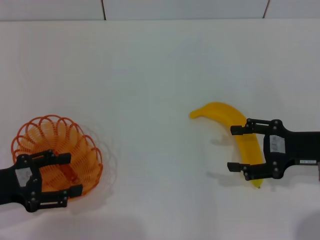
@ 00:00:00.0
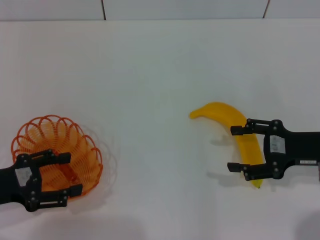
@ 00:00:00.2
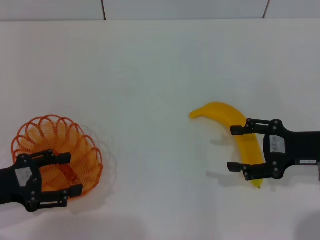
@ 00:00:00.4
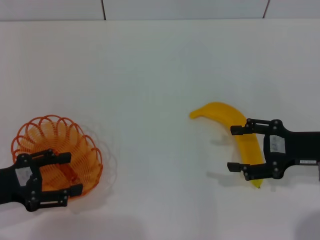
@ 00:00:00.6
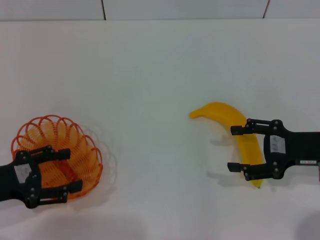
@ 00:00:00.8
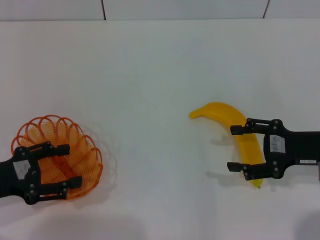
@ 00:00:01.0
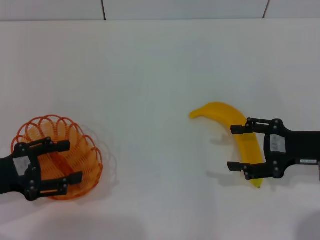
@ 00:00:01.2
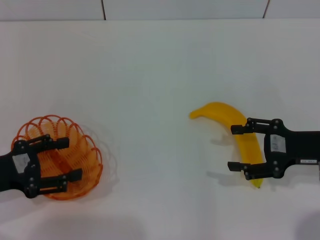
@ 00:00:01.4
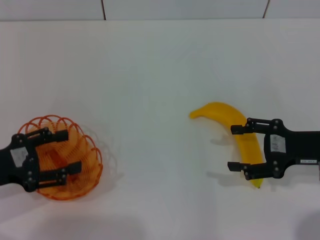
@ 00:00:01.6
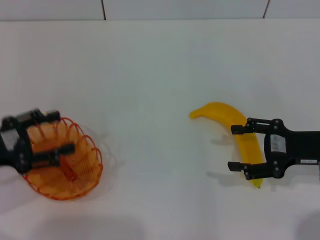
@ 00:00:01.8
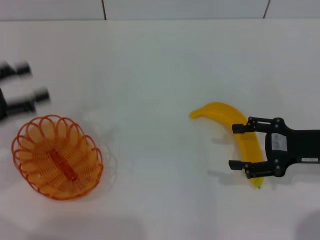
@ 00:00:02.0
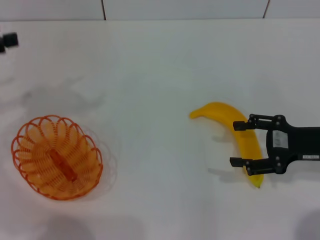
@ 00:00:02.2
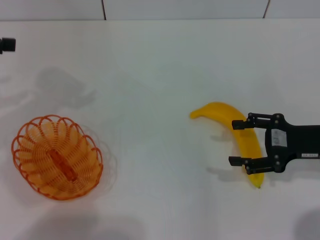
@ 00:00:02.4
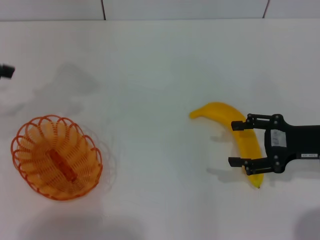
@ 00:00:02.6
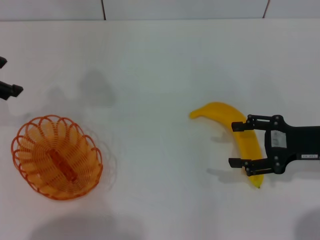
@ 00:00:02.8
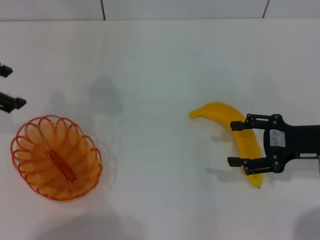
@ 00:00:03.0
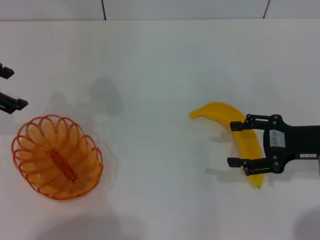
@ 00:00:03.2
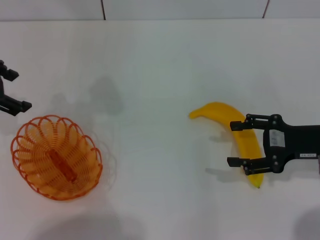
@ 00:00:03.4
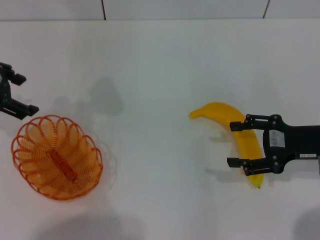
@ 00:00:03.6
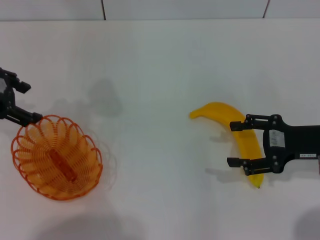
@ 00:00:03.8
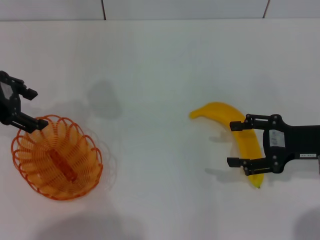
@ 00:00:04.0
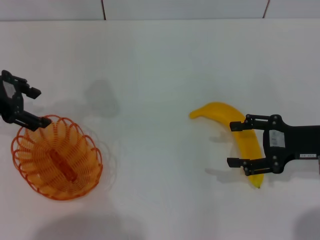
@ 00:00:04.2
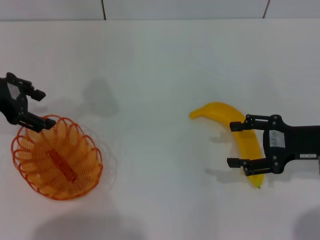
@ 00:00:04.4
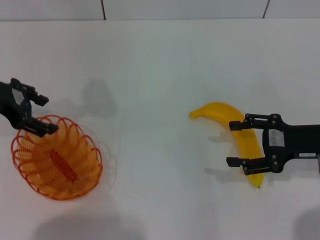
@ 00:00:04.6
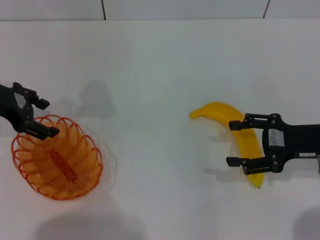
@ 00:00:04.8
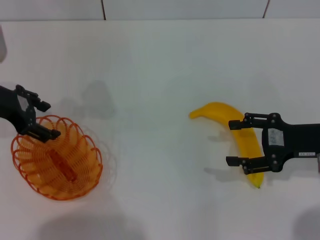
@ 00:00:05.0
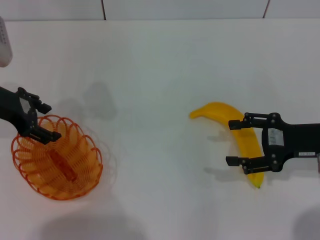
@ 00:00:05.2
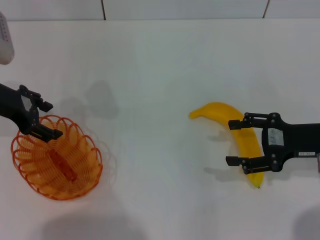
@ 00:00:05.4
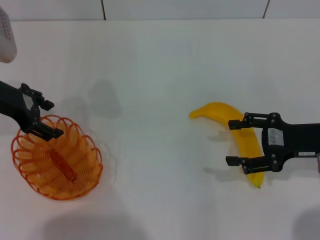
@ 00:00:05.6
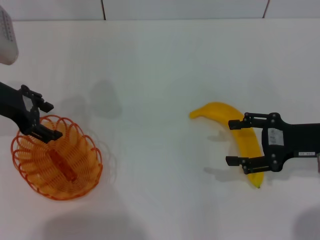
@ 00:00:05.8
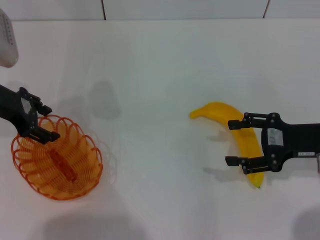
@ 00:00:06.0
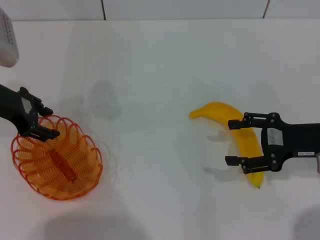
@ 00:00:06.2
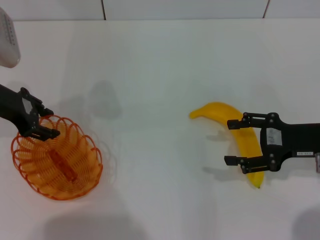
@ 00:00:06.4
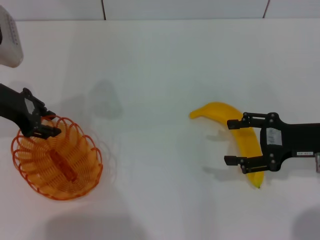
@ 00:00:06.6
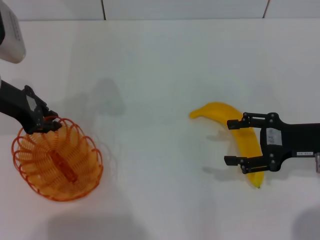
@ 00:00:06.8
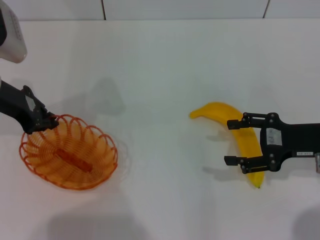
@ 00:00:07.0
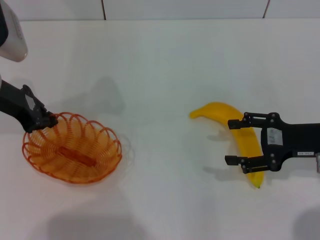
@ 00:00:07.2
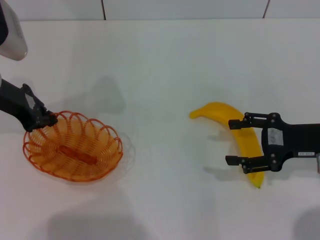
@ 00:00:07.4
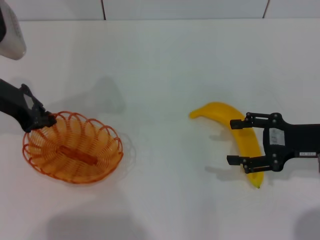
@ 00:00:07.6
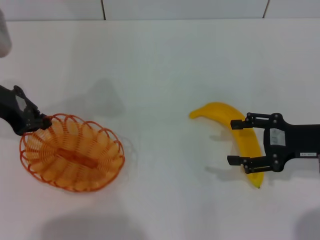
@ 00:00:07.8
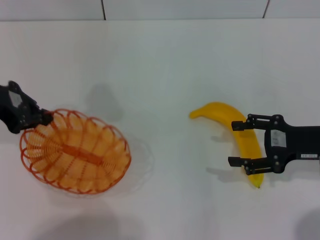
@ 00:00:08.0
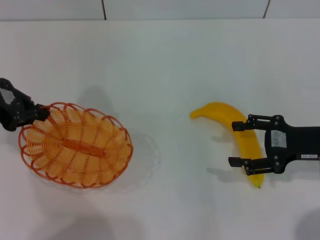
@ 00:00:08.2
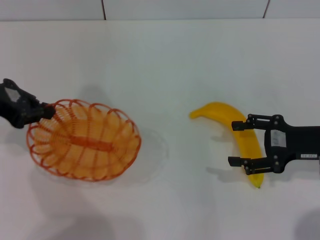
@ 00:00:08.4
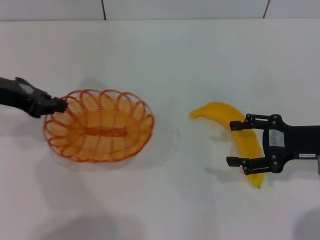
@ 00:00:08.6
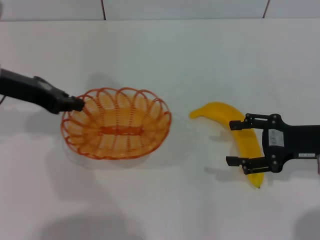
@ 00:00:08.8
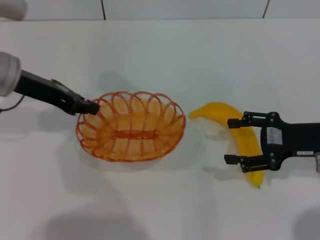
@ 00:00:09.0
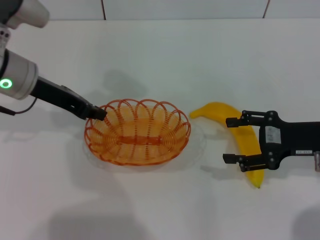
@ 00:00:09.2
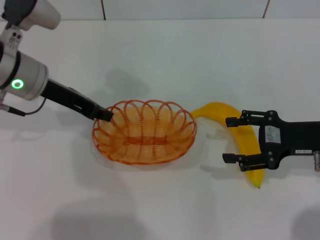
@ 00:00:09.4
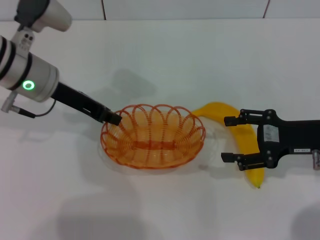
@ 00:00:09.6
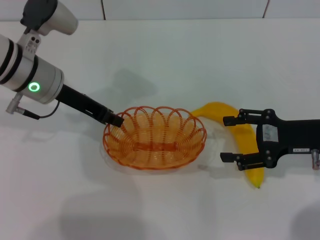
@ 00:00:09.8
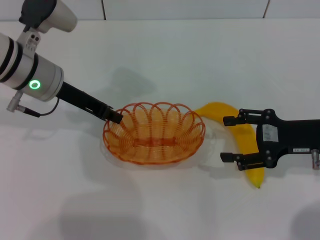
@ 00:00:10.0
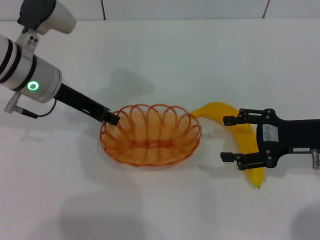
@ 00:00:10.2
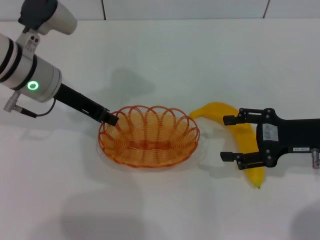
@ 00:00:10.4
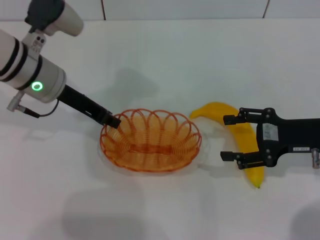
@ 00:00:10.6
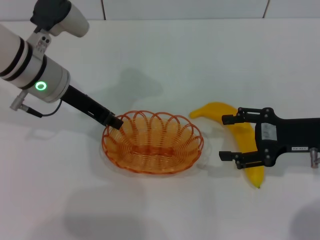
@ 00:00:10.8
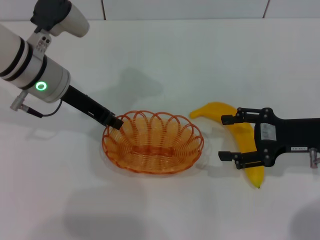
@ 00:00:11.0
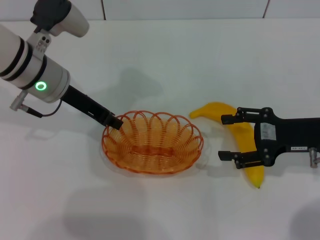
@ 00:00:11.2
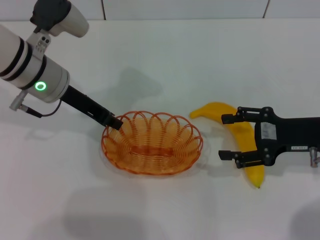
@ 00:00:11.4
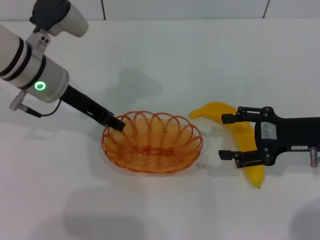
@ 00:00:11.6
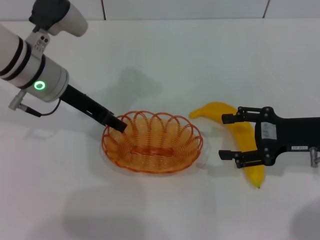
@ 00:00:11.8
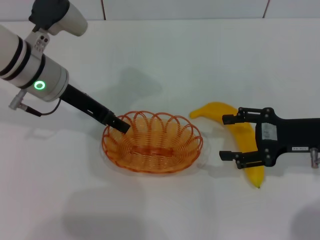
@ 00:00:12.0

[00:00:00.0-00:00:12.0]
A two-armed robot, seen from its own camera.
Step, 00:00:00.0 to 00:00:08.0: Pick up the basket with the left gripper.
00:00:00.0 to 00:00:01.6: There are only small adjustments of the grippers.
00:00:01.6 to 00:00:03.0: The left gripper goes about 20 cm upward and forward.
00:00:03.0 to 00:00:04.4: There are only small adjustments of the grippers.
00:00:04.4 to 00:00:06.0: The grippers make only small movements.
00:00:06.0 to 00:00:07.6: The left gripper closes up.
00:00:09.0 to 00:00:10.4: The left gripper shifts by about 5 cm.
00:00:10.4 to 00:00:12.0: The left gripper opens up.

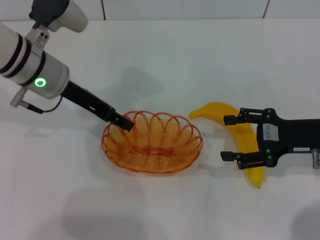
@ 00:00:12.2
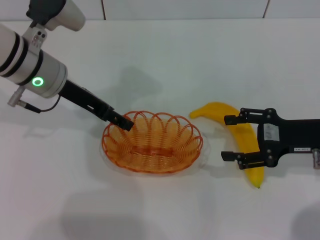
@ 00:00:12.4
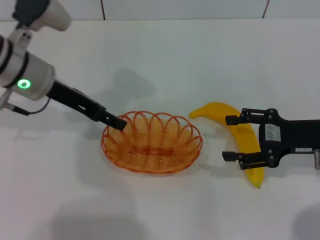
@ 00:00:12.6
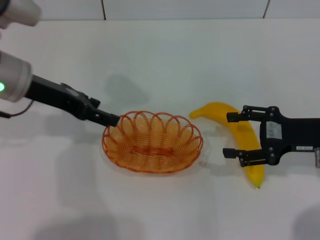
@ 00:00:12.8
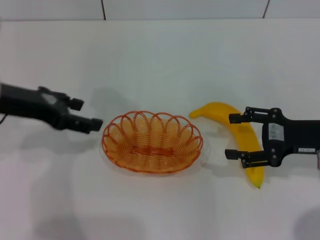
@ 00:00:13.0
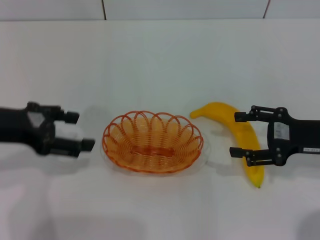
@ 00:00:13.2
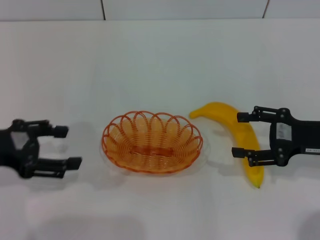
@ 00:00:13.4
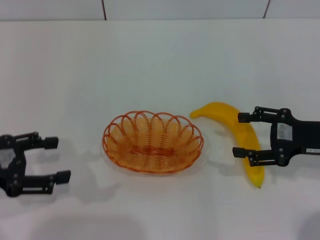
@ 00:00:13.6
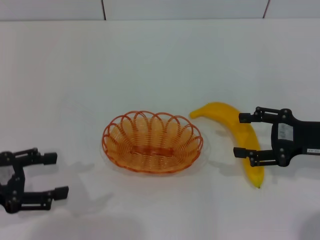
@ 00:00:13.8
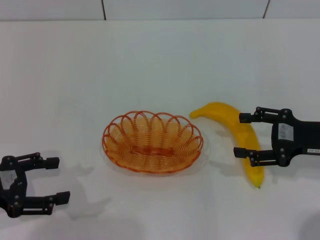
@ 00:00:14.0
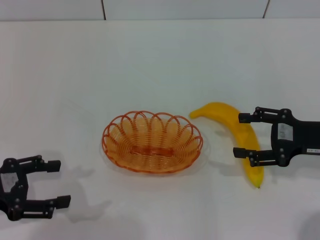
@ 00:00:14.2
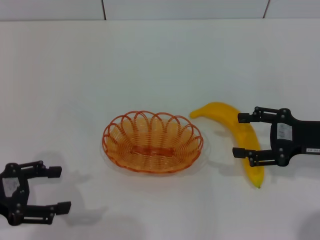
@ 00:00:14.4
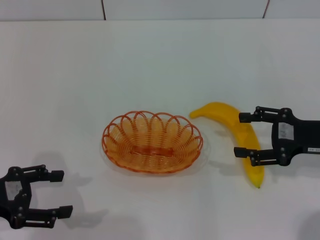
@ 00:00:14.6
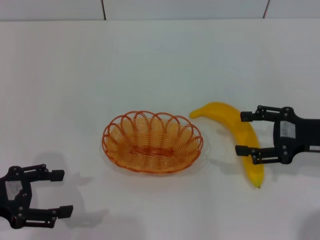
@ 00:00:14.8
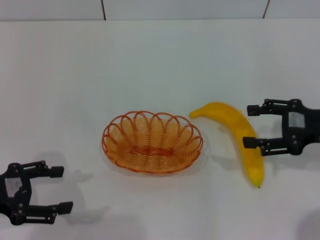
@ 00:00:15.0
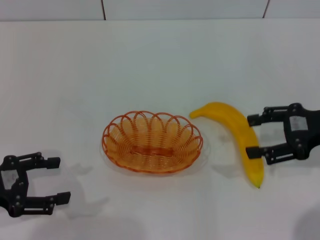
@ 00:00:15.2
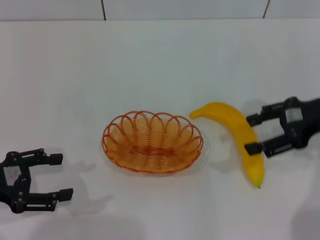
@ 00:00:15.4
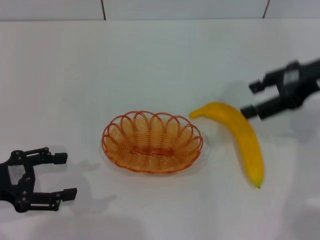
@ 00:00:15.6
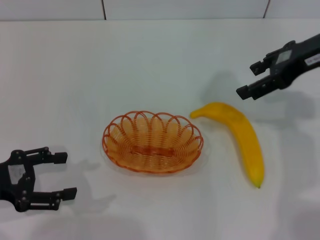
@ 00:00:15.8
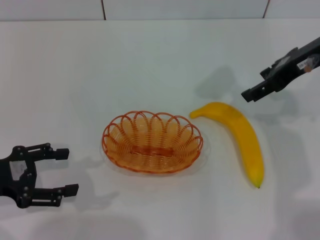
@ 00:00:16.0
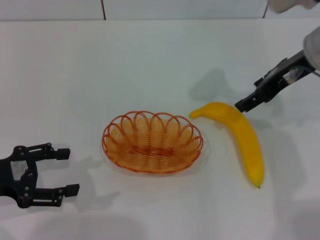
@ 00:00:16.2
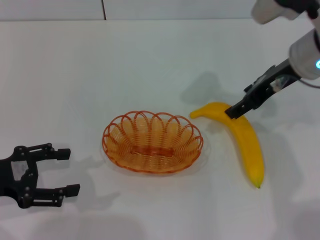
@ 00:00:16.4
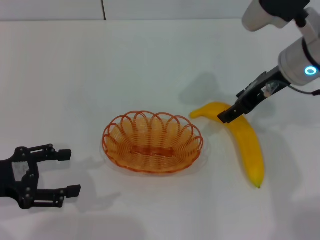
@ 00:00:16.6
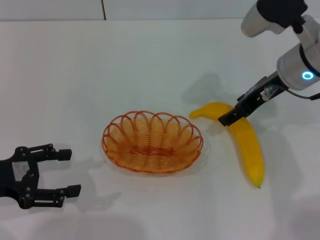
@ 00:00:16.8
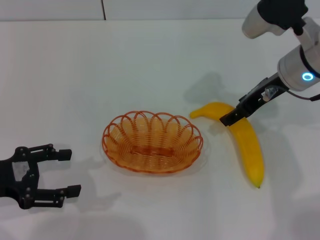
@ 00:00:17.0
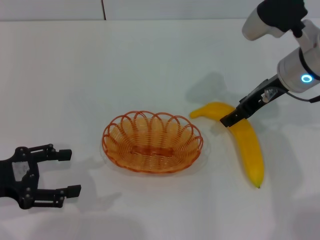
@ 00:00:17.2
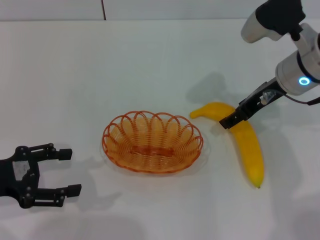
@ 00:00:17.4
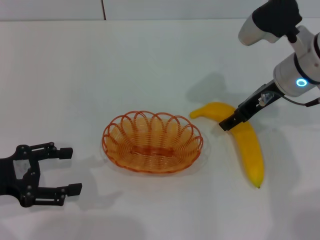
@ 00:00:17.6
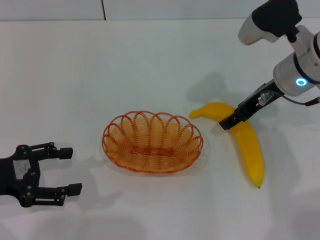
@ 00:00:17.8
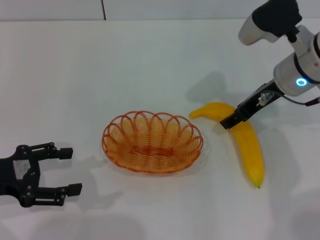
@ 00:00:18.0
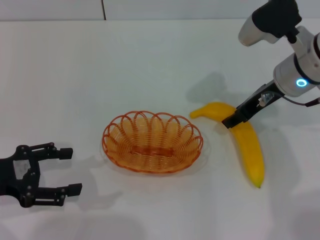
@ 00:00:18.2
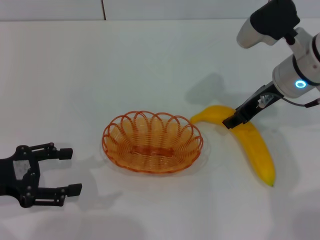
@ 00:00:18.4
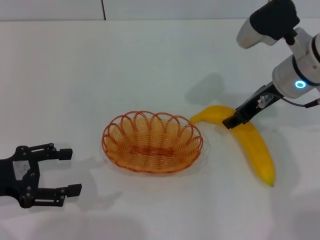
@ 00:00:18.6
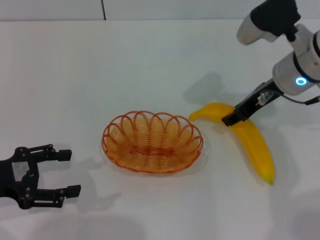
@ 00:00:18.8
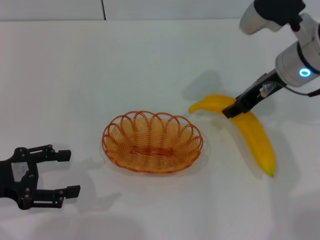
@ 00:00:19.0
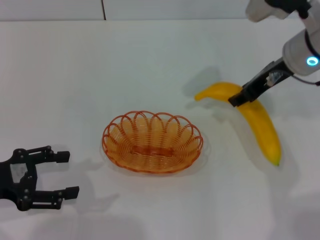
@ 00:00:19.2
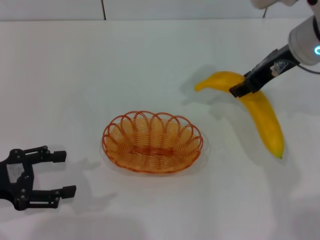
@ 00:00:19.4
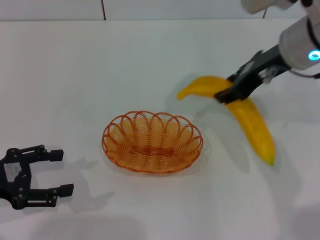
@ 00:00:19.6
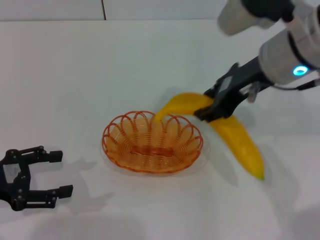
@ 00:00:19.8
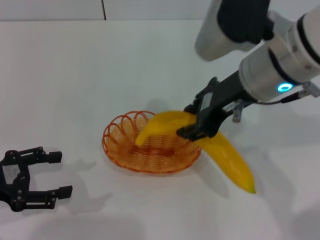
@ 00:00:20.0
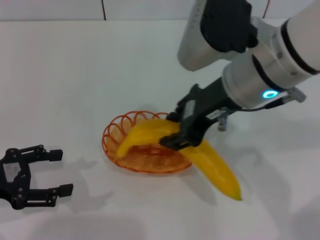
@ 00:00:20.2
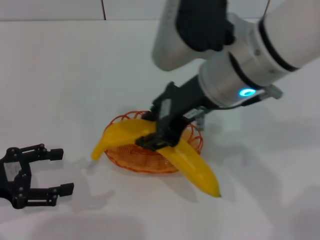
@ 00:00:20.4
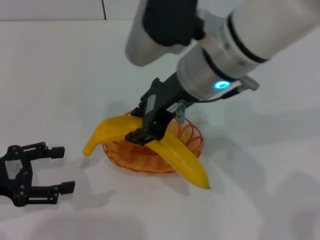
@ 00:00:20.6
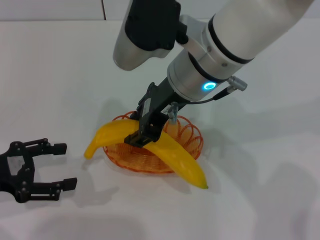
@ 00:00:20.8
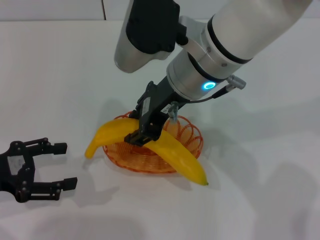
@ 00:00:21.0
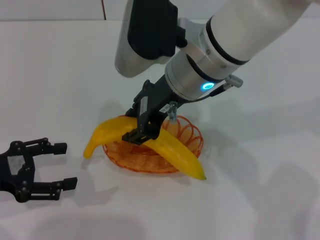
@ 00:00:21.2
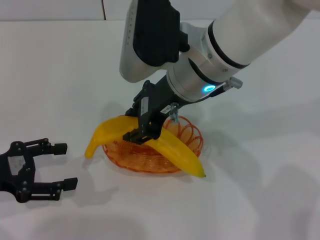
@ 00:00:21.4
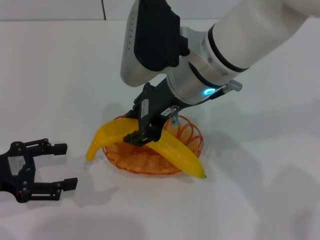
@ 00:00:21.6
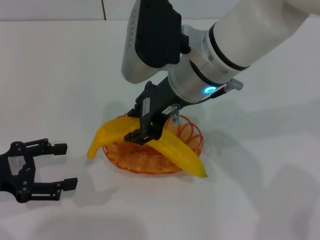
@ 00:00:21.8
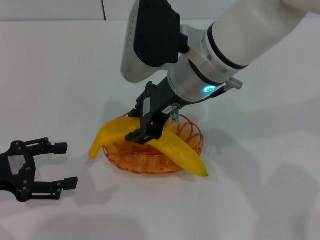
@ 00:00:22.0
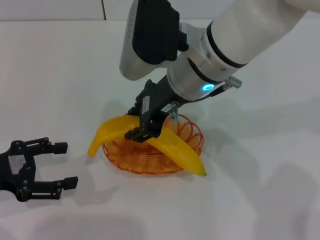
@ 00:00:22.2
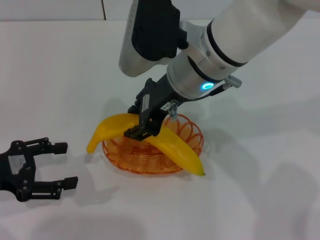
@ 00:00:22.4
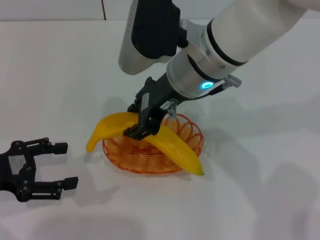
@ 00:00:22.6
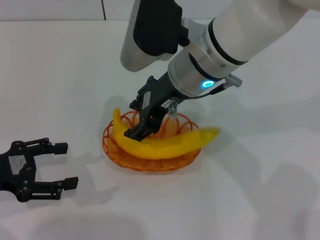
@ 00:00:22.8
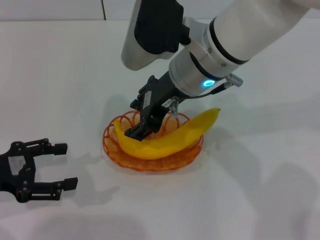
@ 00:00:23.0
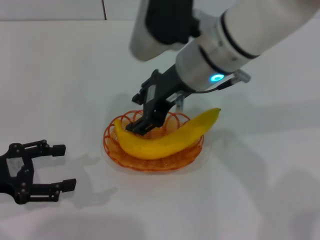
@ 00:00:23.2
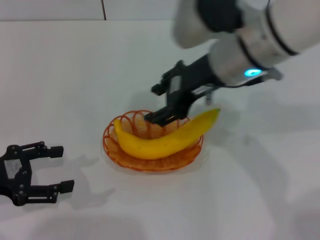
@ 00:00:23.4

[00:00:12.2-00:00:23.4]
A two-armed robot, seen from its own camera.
Step, 00:00:12.8 to 00:00:19.0: Pick up the banana with the right gripper.
Step, 00:00:19.4 to 00:00:22.8: Place the banana into the basket with the right gripper.
00:00:12.2 to 00:00:13.8: The left gripper heads backward and to the left, covering about 25 cm, and opens its fingers.
00:00:13.8 to 00:00:15.4: The right gripper goes about 10 cm upward.
00:00:15.4 to 00:00:17.0: The right gripper heads to the left and forward, covering roughly 10 cm.
00:00:17.0 to 00:00:18.6: The right gripper closes.
00:00:18.6 to 00:00:20.2: The right gripper is displaced to the left, upward and backward by about 15 cm.
00:00:20.2 to 00:00:21.8: The right gripper heads to the left, covering some 5 cm.
00:00:21.8 to 00:00:23.4: The right gripper goes about 5 cm to the right.
